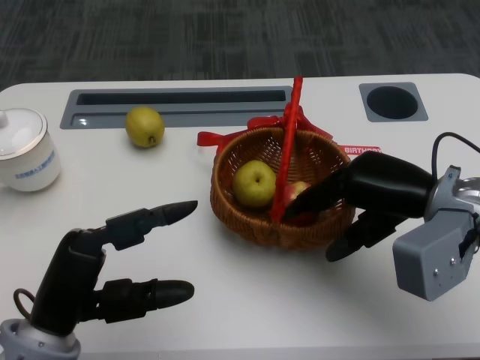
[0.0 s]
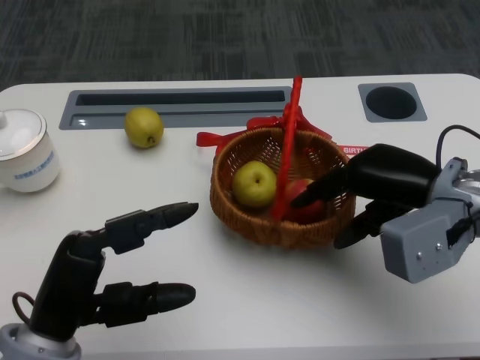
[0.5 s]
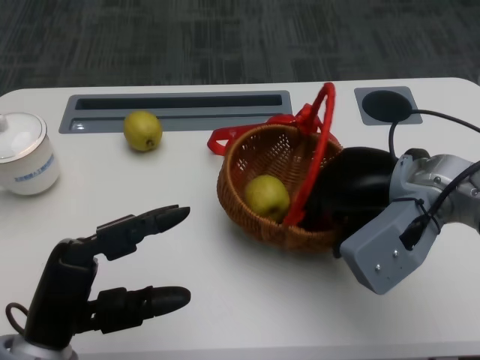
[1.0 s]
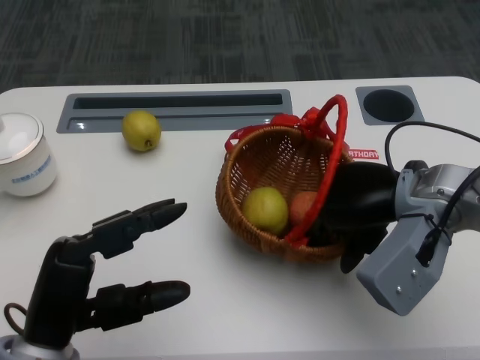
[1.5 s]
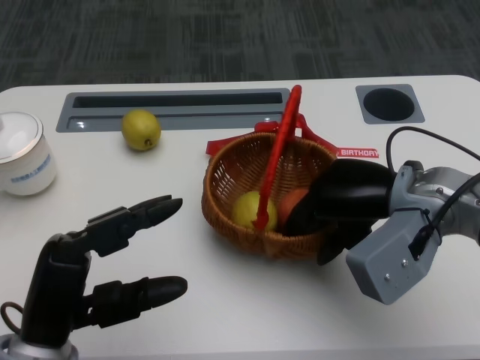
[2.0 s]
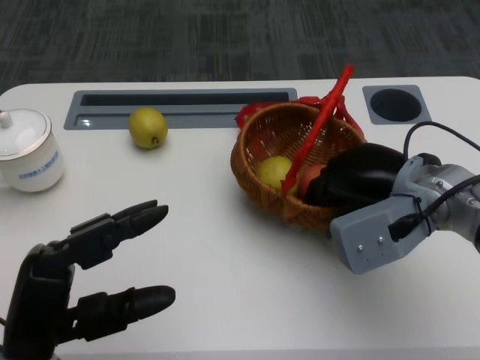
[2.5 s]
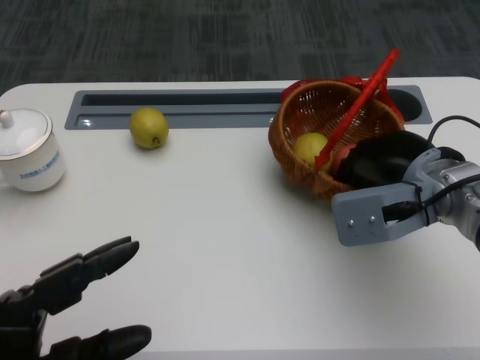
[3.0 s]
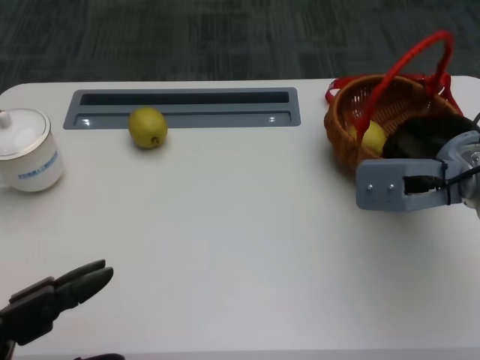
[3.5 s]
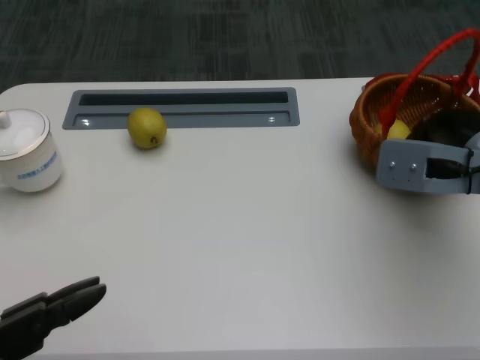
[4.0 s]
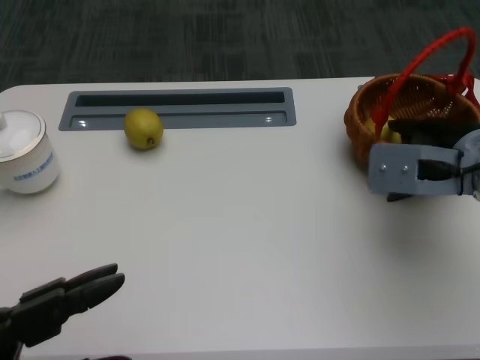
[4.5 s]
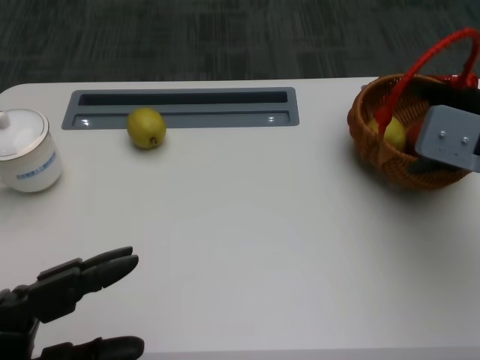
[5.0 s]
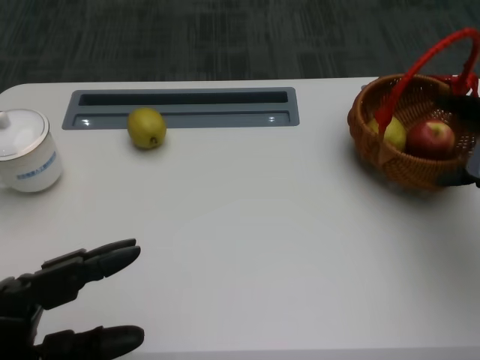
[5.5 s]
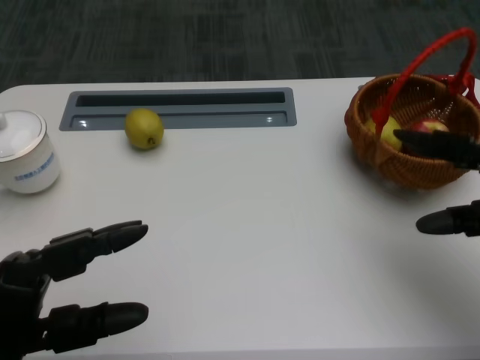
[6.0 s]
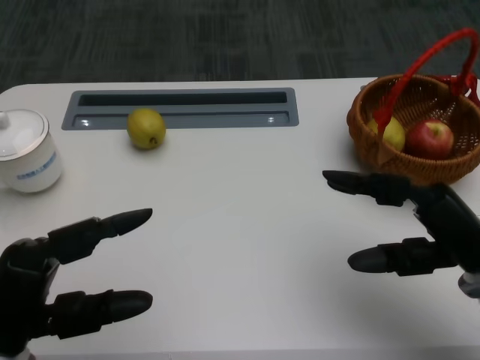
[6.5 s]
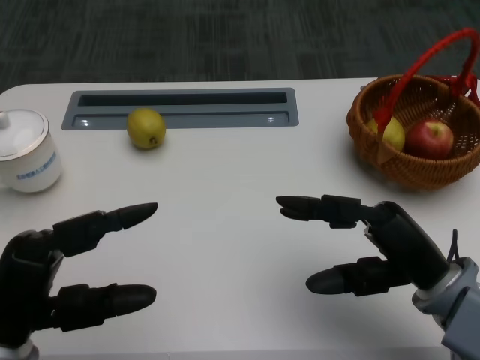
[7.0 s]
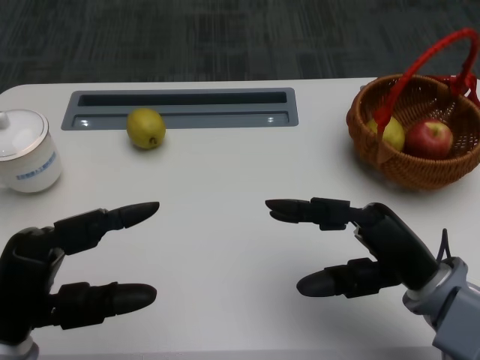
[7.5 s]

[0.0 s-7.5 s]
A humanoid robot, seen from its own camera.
Step, 0.0 to 1.5 s: Move the basket to the front of the table with the right gripper.
2.0 to 4.0 s: The left hand moves backward, roughly 10 cm. The right hand goes approximately 5 cm to the right.
4.0 to 5.5 s: The right hand is displaced to the right by approximately 5 cm.
5.5 to 7.5 s: The right hand is displaced to the left, backward and downward by roughly 15 cm.

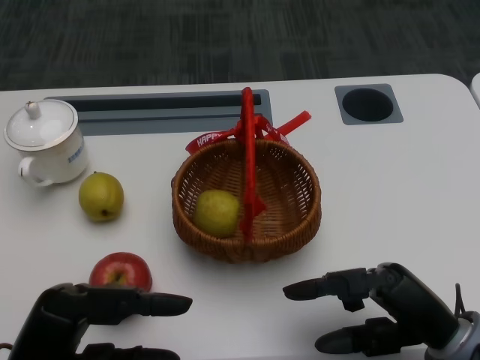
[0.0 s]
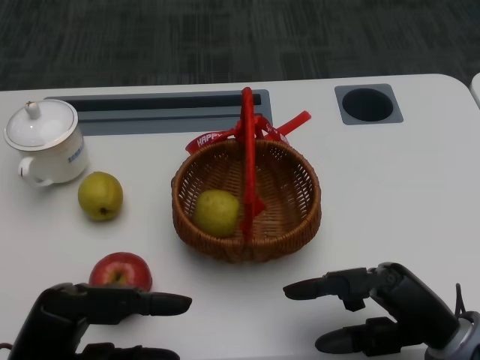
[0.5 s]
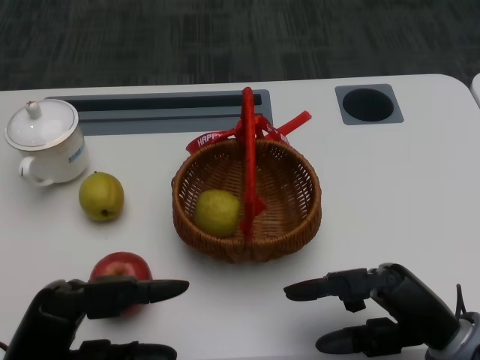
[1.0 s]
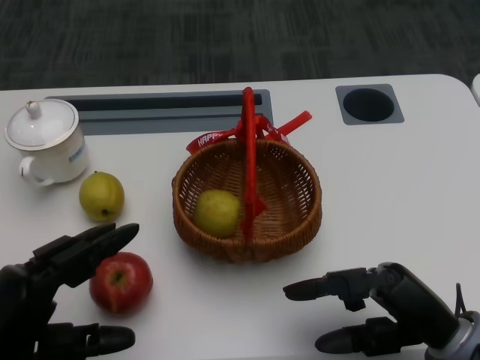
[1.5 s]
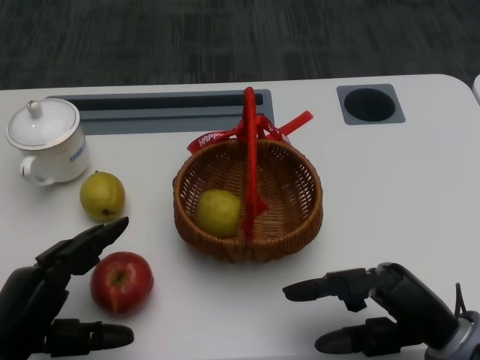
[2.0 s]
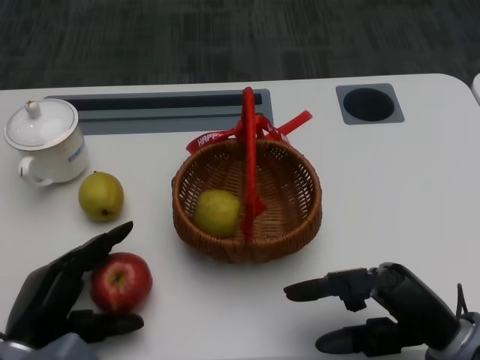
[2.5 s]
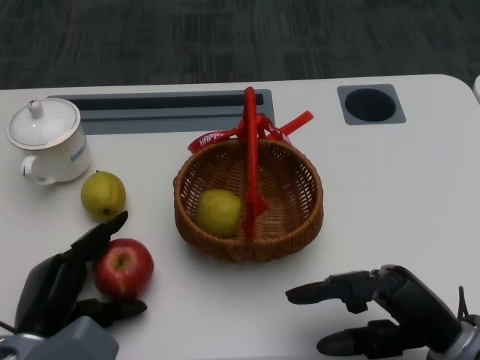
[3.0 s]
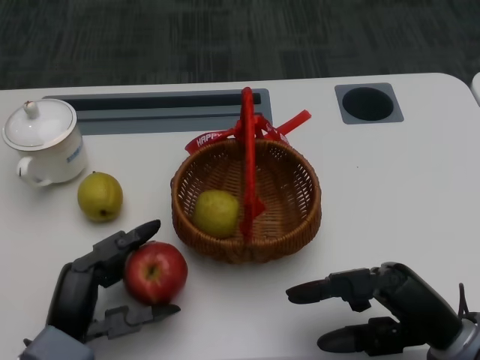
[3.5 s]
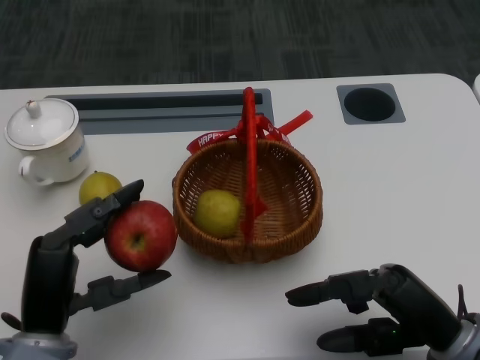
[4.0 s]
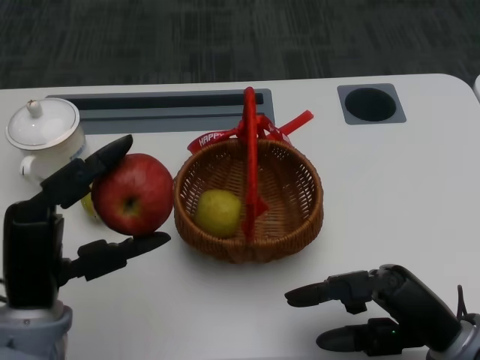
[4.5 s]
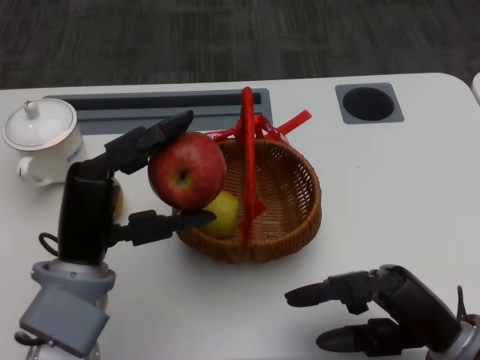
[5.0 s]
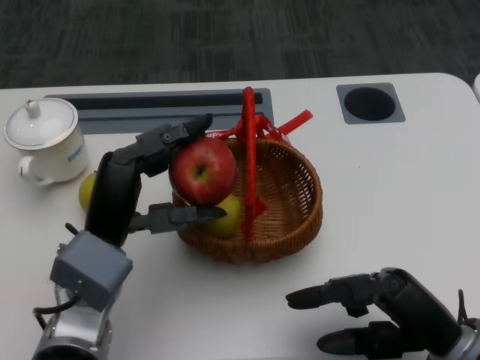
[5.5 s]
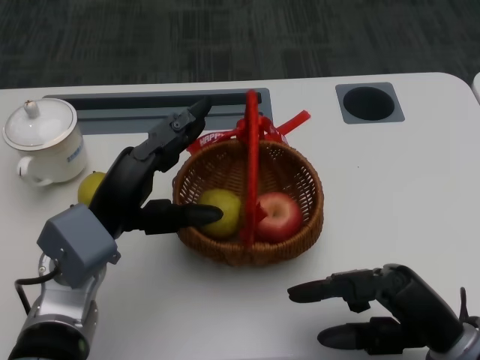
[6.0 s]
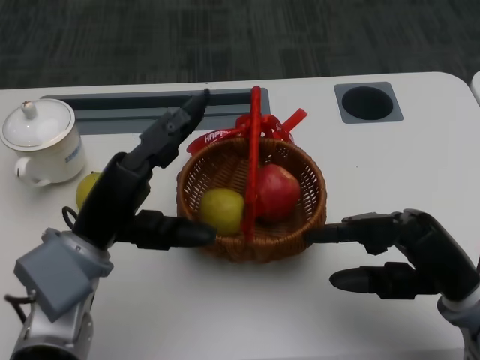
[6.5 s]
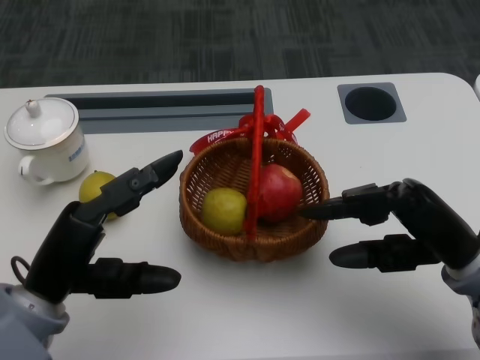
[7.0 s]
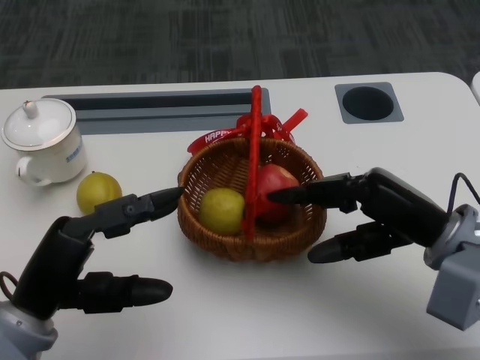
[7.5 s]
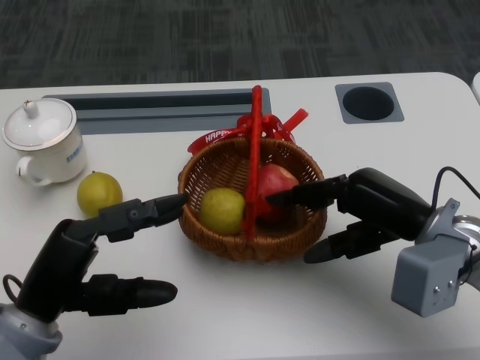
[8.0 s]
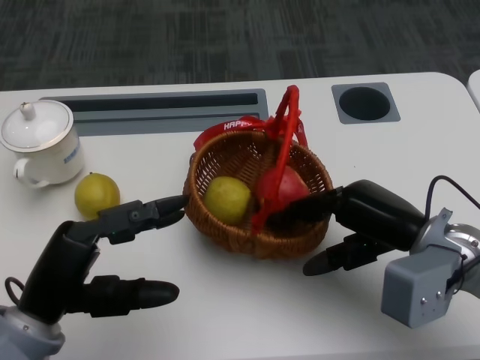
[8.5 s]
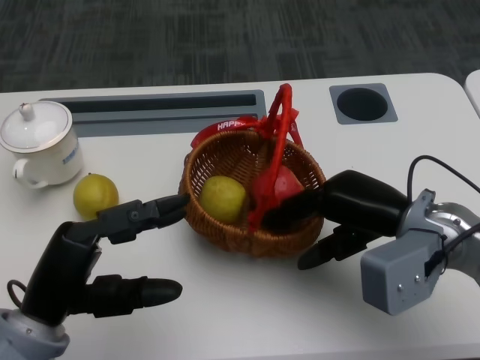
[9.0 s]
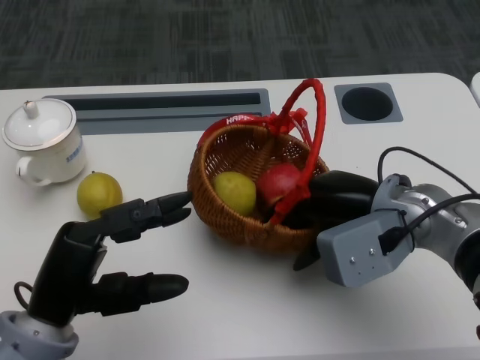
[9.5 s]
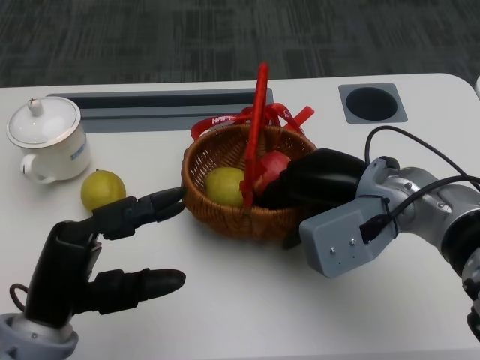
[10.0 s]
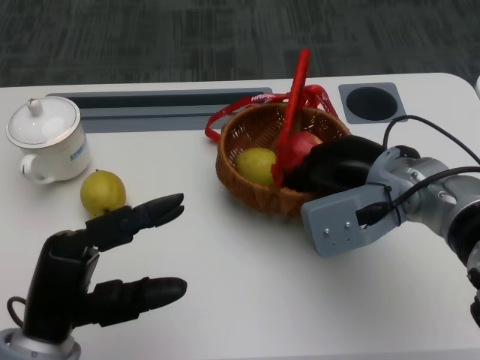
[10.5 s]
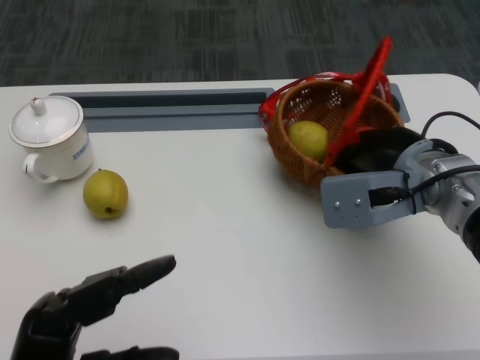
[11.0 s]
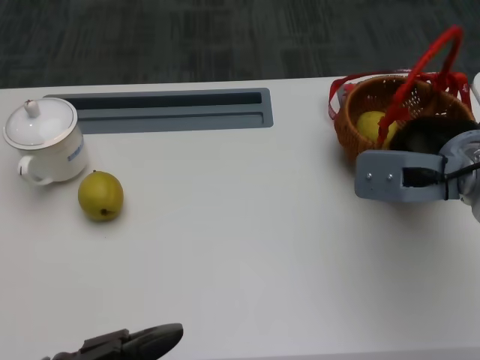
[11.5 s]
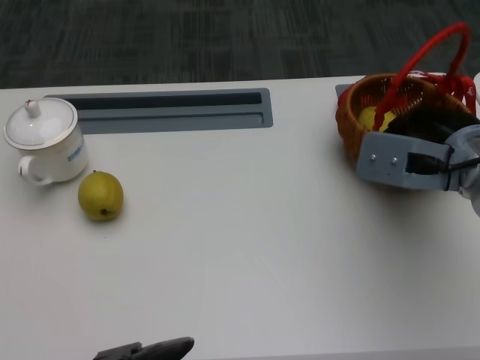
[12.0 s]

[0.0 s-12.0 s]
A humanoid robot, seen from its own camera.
Step, 1.0 to 4.5 s: Grasp the apple with the left gripper.
Step, 5.0 to 7.5 s: Grasp the basket with the right gripper.
Step, 8.0 to 10.0 s: Move the basket to the front of the table with the right gripper.
2.0 to 4.0 s: The left hand travels to the right by approximately 5 cm.
4.0 to 6.0 s: The left hand is displaced forward by some 10 cm.
6.0 to 8.0 s: The right hand goes some 10 cm forward and upward, while the left hand goes about 10 cm backward and to the left.
8.0 to 10.0 s: The right hand heads to the left, covering roughly 5 cm.
10.0 to 12.0 s: The left hand is displaced backward by approximately 15 cm. Meanwhile the right hand goes roughly 10 cm to the right.

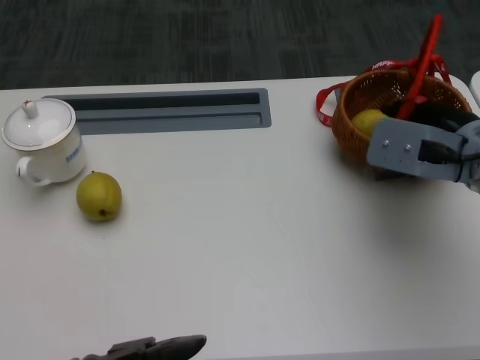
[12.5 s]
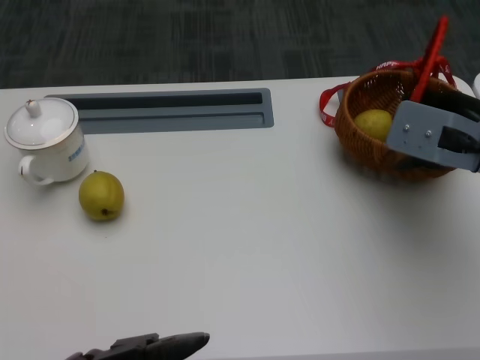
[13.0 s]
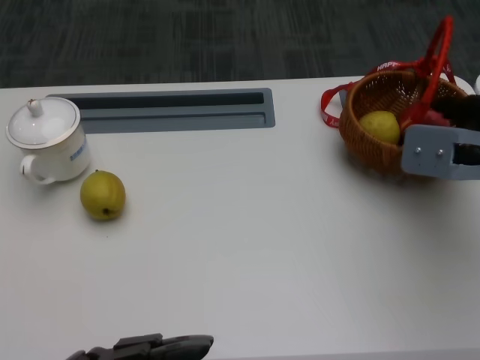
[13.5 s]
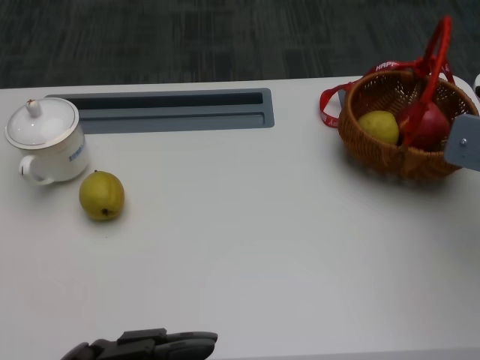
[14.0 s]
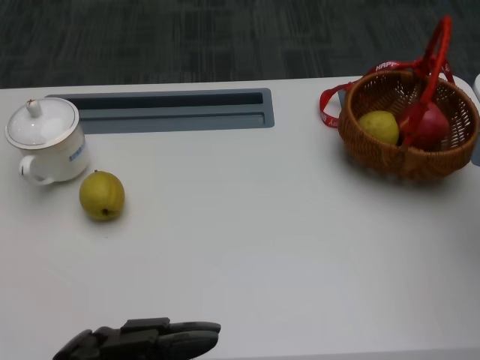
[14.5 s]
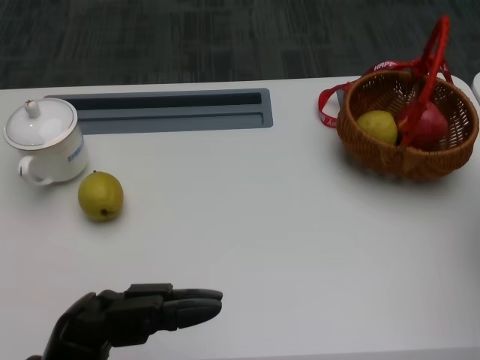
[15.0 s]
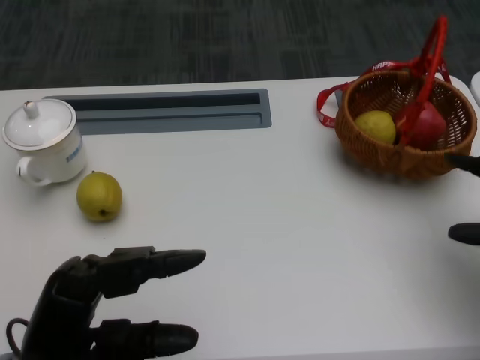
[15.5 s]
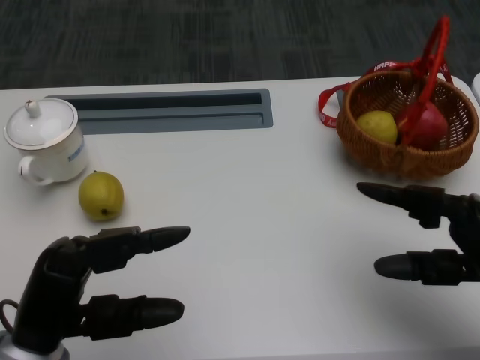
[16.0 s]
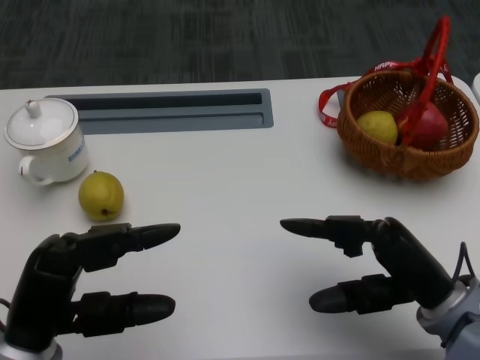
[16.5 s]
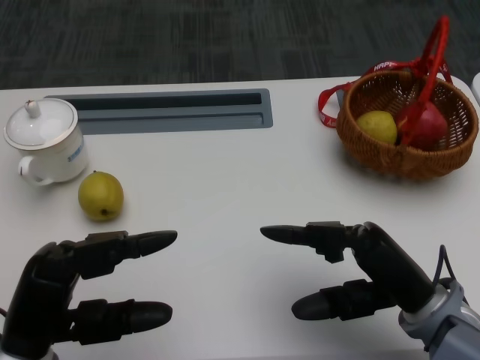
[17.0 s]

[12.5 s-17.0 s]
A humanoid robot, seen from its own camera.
12.5 to 14.5 s: The right hand goes roughly 10 cm to the right.
14.5 to 17.0 s: The left hand travels forward by about 5 cm. Meanwhile the right hand is displaced to the left, backward and downward by approximately 20 cm.
